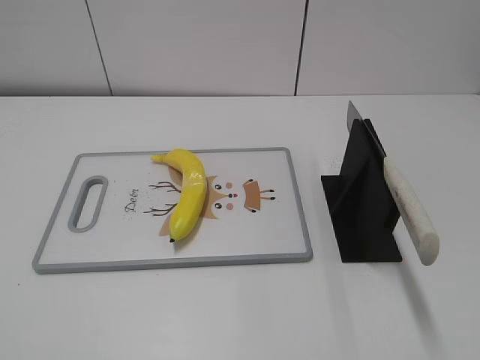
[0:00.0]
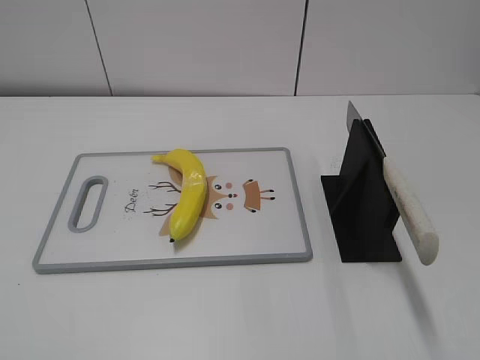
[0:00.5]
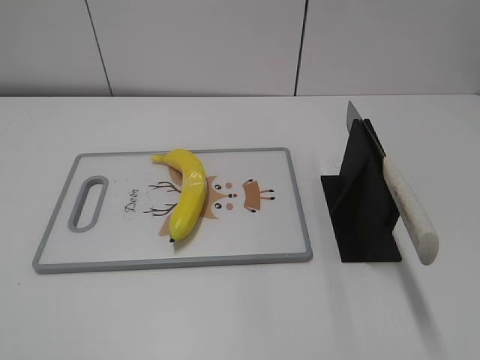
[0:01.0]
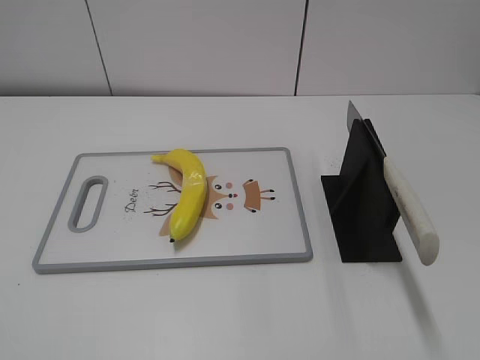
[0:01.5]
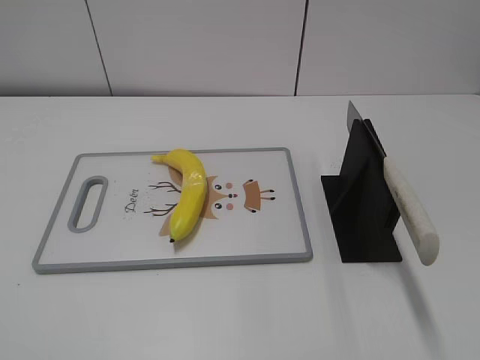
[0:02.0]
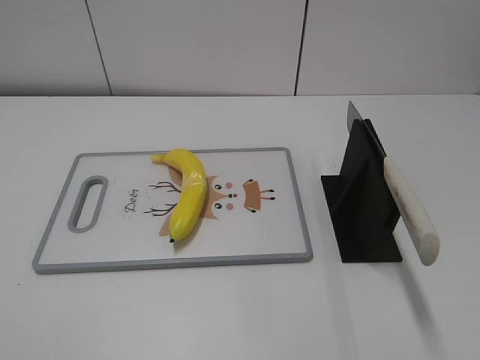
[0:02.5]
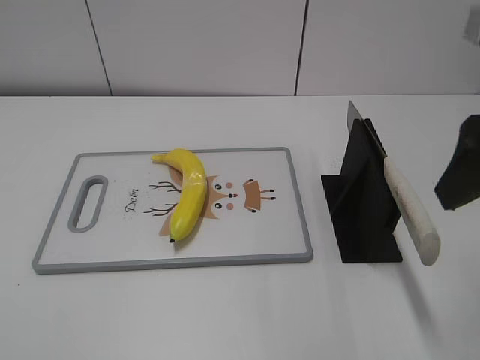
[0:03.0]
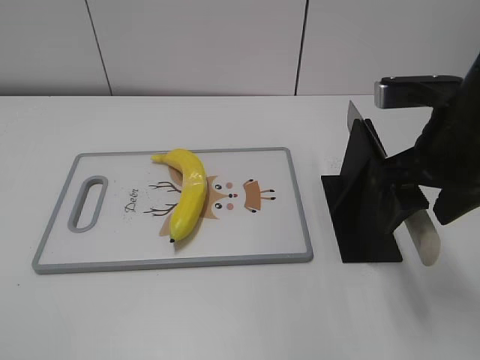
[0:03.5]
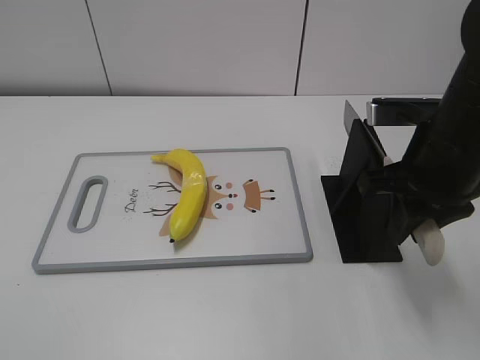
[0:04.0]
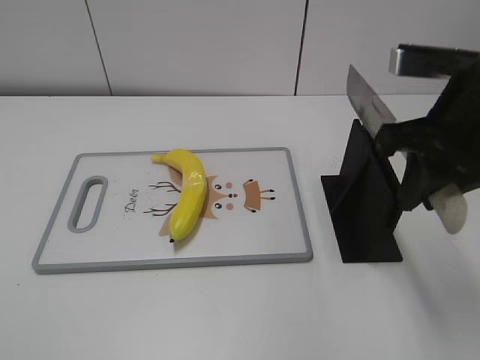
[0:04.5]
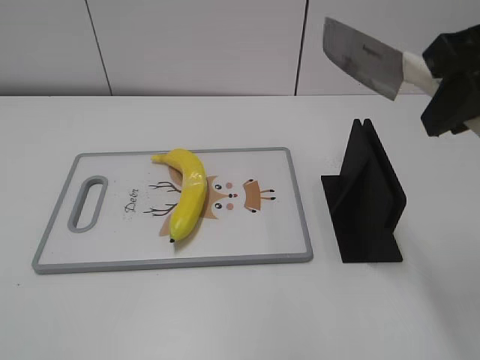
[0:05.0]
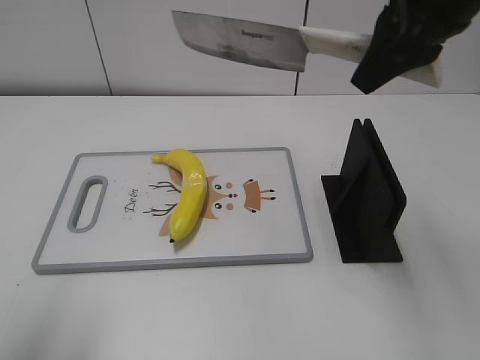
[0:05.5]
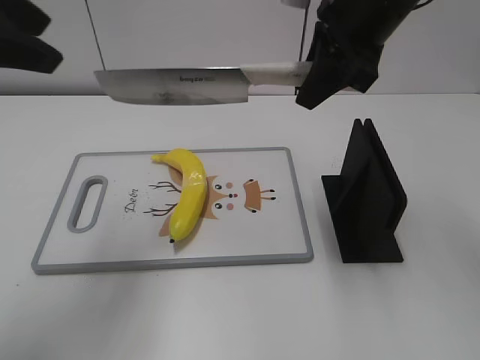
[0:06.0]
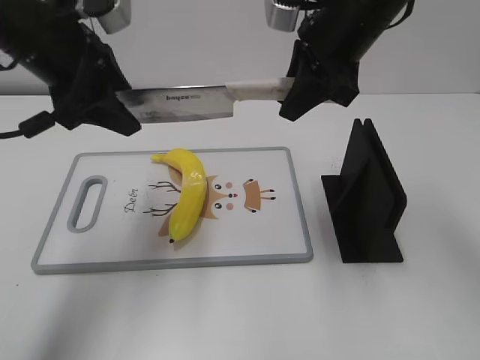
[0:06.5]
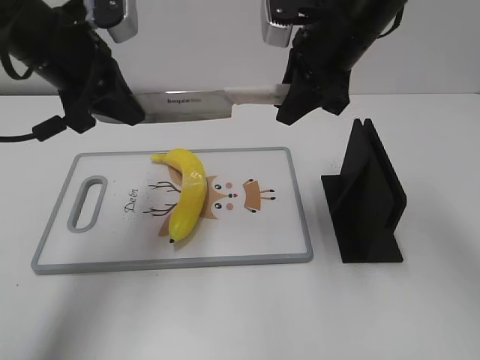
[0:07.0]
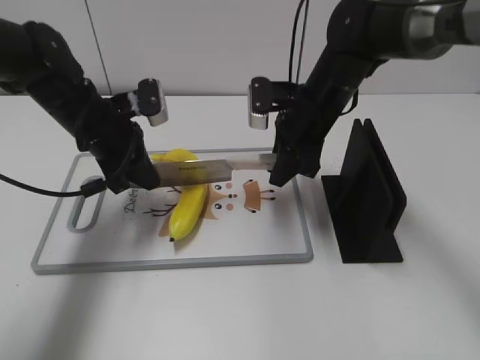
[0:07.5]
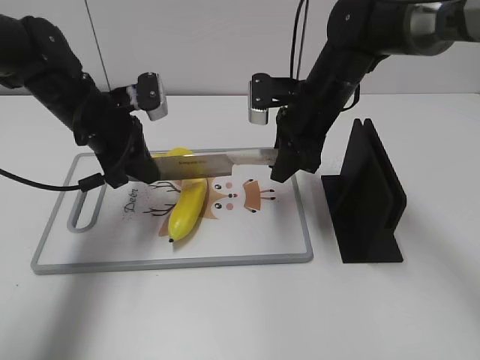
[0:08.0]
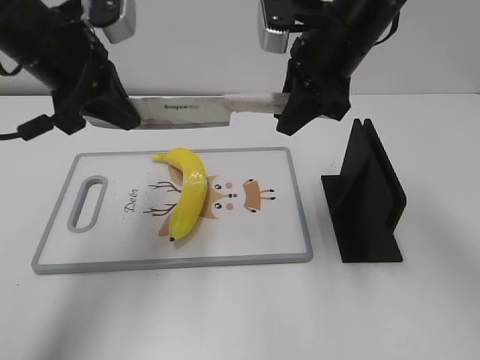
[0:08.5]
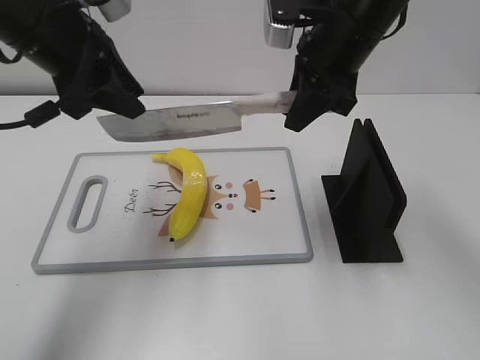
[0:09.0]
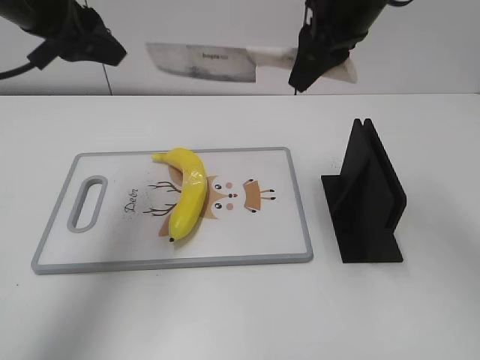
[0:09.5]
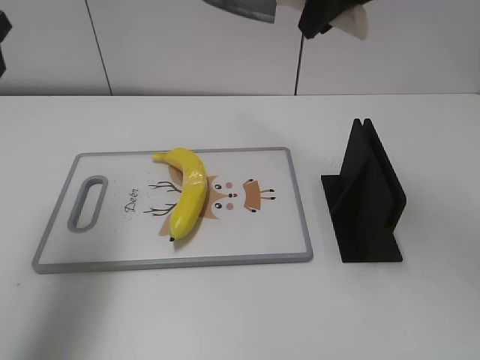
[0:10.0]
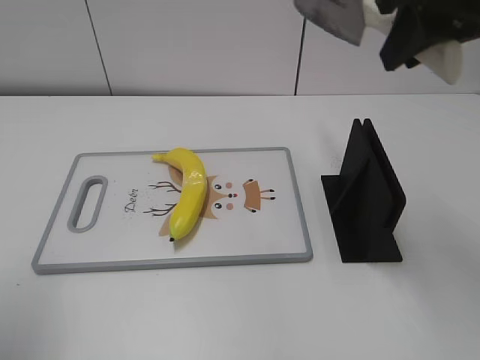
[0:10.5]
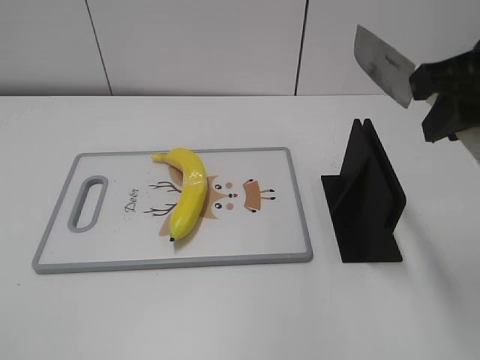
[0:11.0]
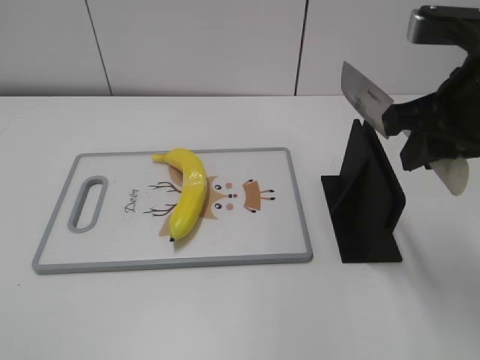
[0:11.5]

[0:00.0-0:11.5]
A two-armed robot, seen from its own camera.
Task of the whole recording: cut plastic banana.
Step, 0:00.0 to 0:05.0: Grab the knife handle with your right hand.
Step, 0:05.5 to 0:08.0: Lift the knife with your right hand.
Step, 0:08.5 to 0:09.5: Cut the banana with your right hand.
Step, 0:10.0 to 0:11.0: Lift the knife with your right hand.
0:02.0 to 0:04.0: The right gripper shifts about 30 cm forward, to the left and downward, and closes.
0:04.0 to 0:06.0: The left gripper is displaced forward by roughly 25 cm. Meanwhile the right gripper travels upward, forward and to the left by about 15 cm.
0:06.0 to 0:07.5: The right gripper goes roughly 15 cm downward; the left gripper shifts approximately 25 cm downward and forward, and closes.
0:07.5 to 0:09.5: The two grippers go approximately 15 cm upward. The left gripper opens up.
0:09.5 to 0:11.5: The right gripper is displaced backward and to the right by some 15 cm; the left gripper goes about 35 cm backward.

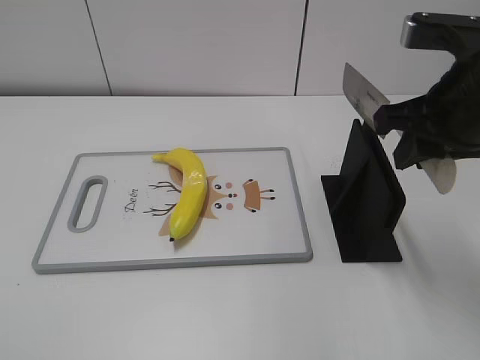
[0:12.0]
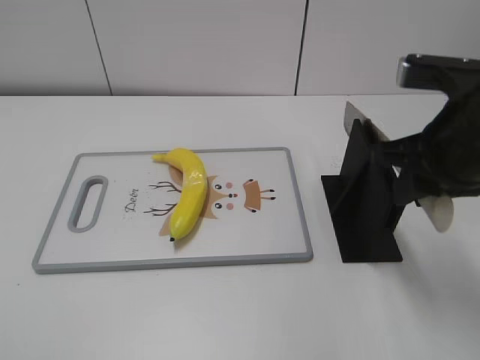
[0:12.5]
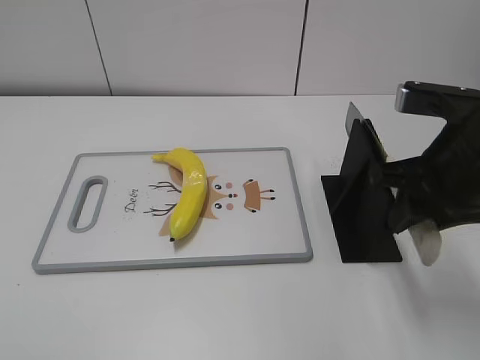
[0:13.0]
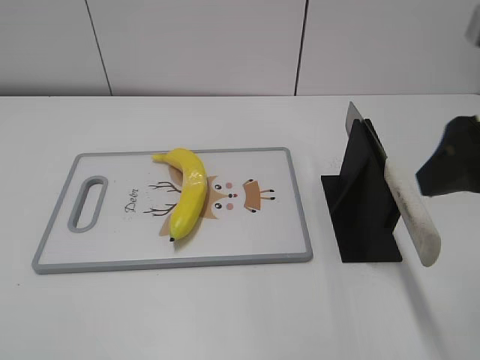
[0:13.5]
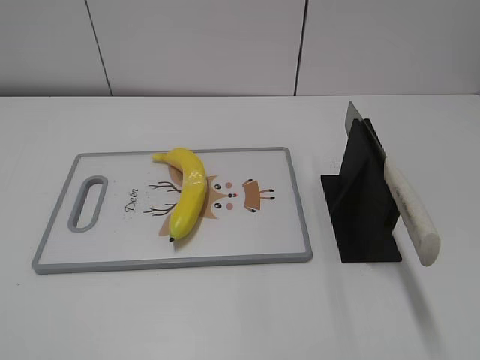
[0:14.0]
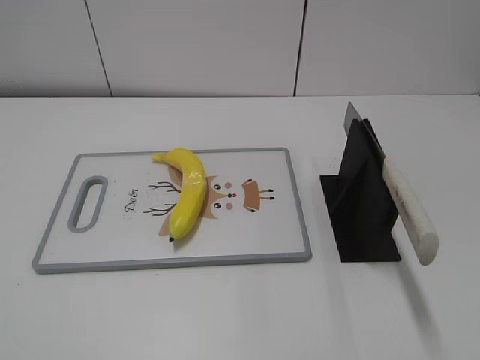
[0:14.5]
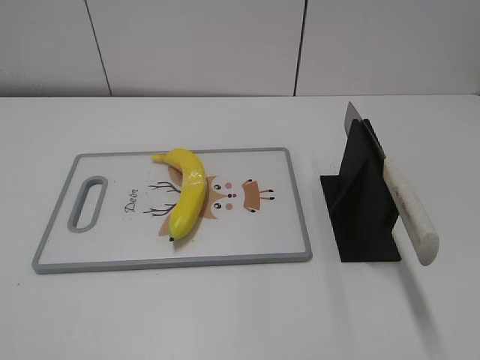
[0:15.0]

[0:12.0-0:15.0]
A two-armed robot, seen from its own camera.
Task of the whole recording: cut plastic banana.
Step, 0:12.0 to 0:15.0: Place the knife on the storage rack with your right hand.
0:12.0 to 0:13.5: The right gripper heads backward, covering about 5 cm, and opens its fingers.
0:13.5 to 0:15.0: The right gripper moves backward and to the right, approximately 20 cm.

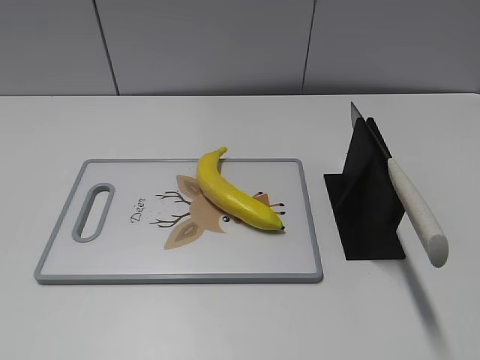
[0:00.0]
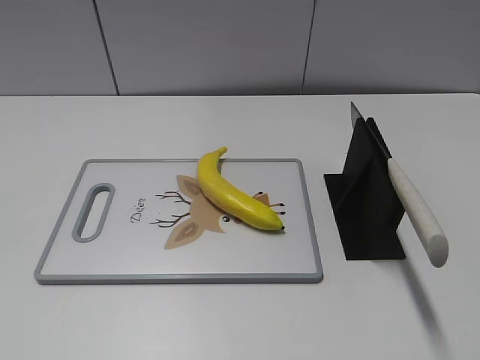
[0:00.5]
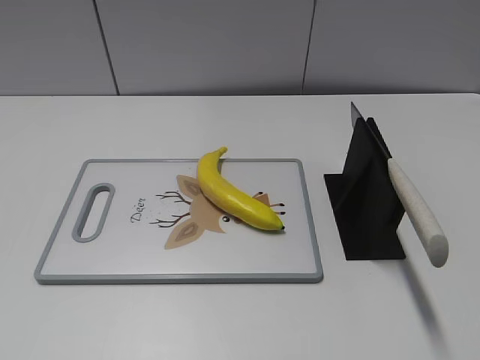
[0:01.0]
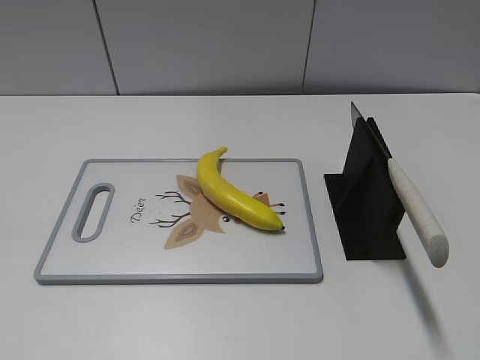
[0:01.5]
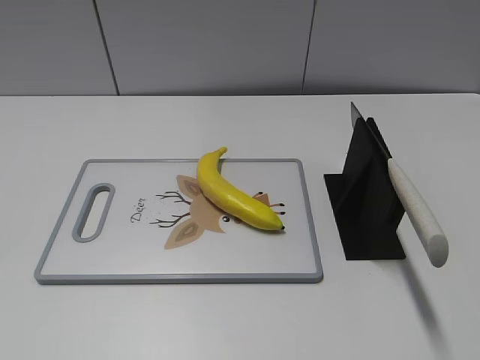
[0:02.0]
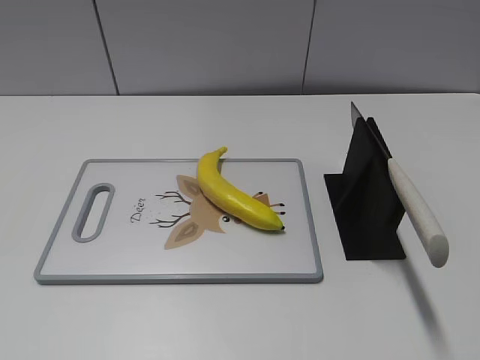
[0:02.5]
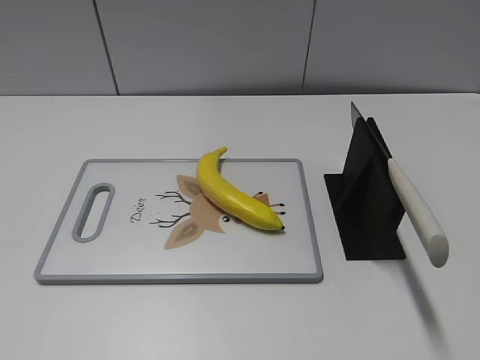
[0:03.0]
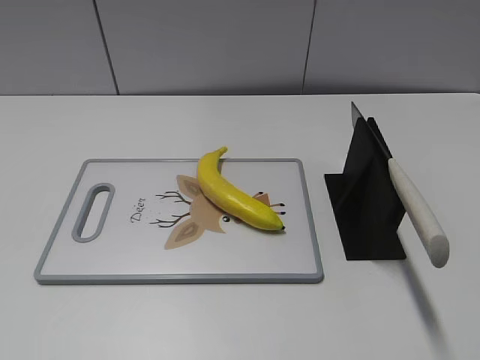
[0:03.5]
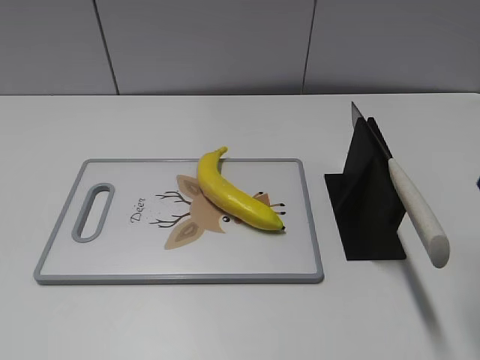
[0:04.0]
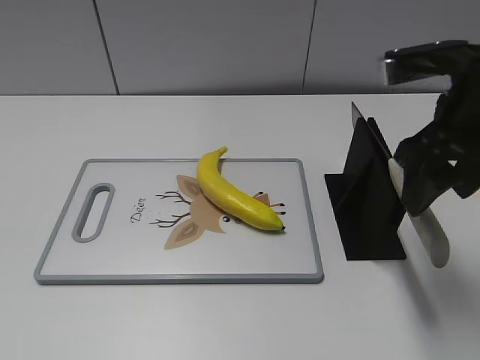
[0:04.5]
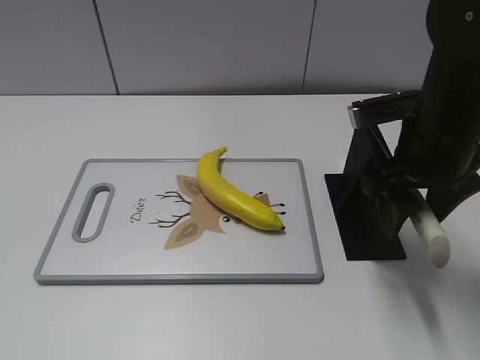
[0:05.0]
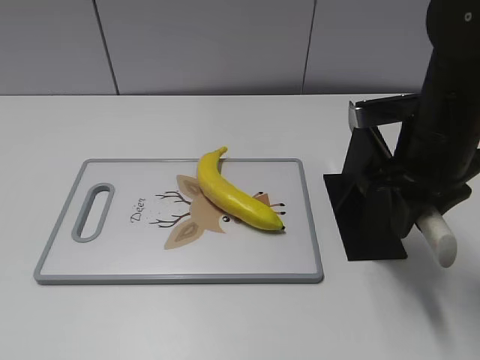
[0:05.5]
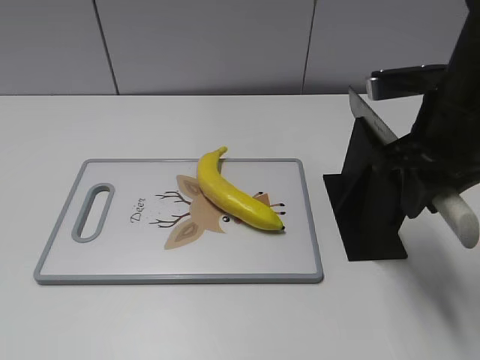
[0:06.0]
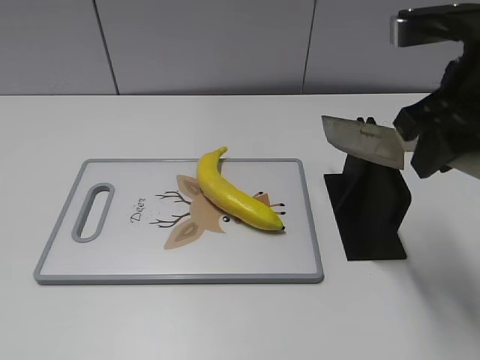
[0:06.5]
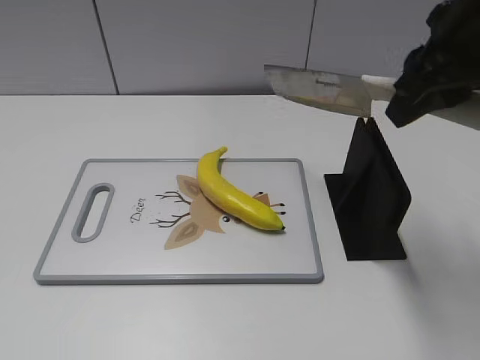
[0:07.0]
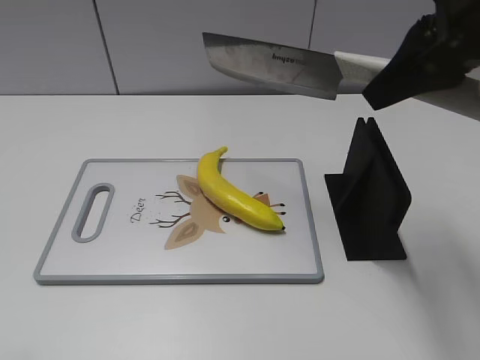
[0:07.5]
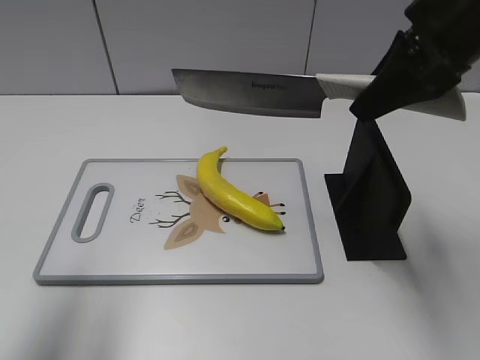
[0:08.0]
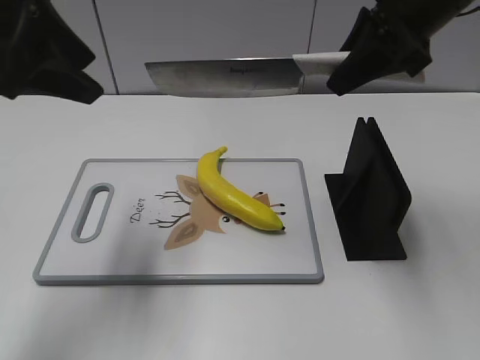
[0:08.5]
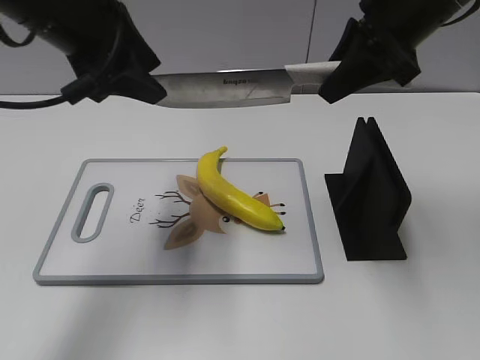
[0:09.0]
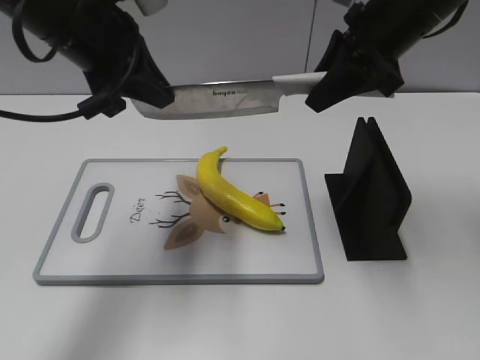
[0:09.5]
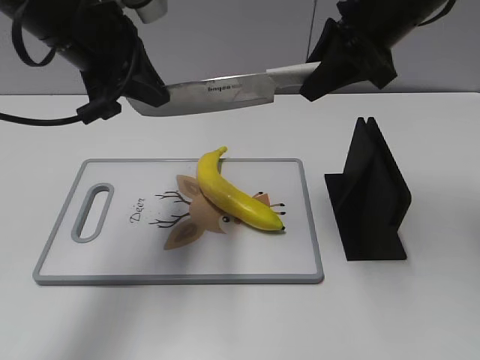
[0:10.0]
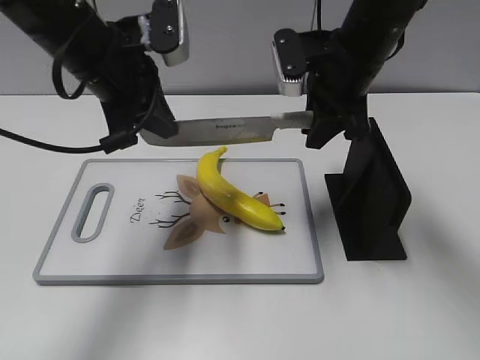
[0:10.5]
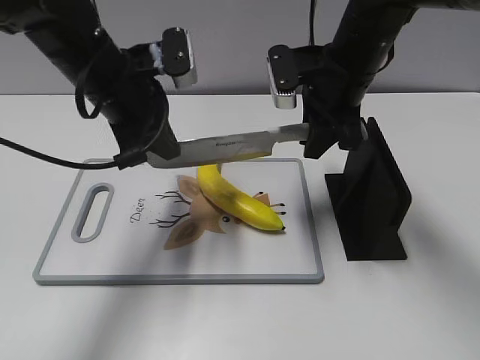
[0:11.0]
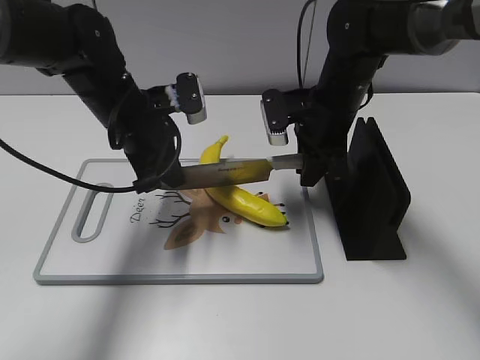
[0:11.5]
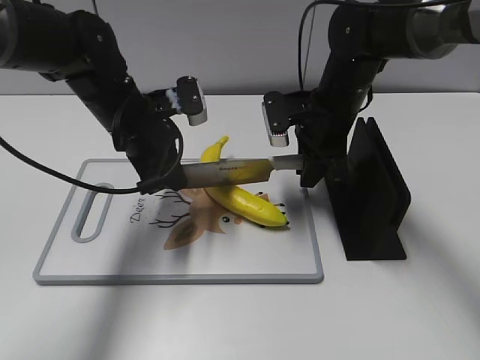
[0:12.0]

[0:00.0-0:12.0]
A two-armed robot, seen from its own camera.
Task of the whole recording: cut plastic banana.
Step, 0:00.0 to 0:06.5: Grab the knife handle with your right hand.
Step, 0:07.0 to 0:11.5: Lift the knife with your right hand.
0:04.0 to 0:06.0: The right gripper moves downward, forward and to the left, roughly 10 cm, and closes.
0:06.0 to 0:08.0: The left gripper shifts roughly 20 cm forward, while the right gripper is displaced upward by about 10 cm.
0:08.0 to 0:10.0: The right gripper moves forward, roughly 10 cm, while the left gripper heads forward and to the right, covering some 20 cm, and closes.
0:10.0 to 0:12.0: The grippers both shift downward by roughly 15 cm.
